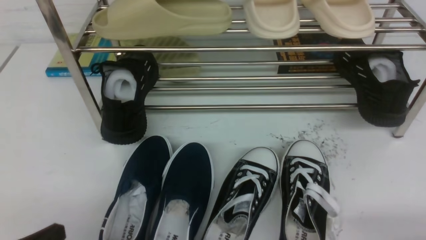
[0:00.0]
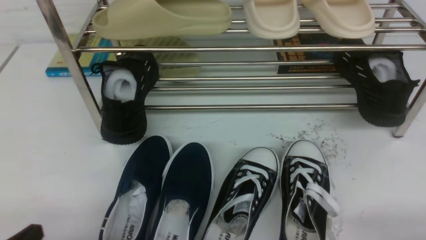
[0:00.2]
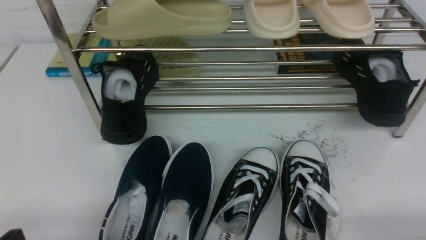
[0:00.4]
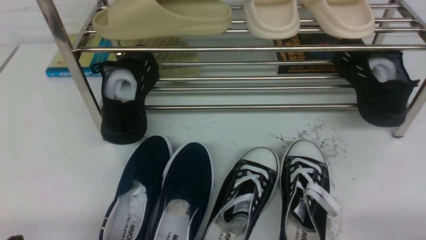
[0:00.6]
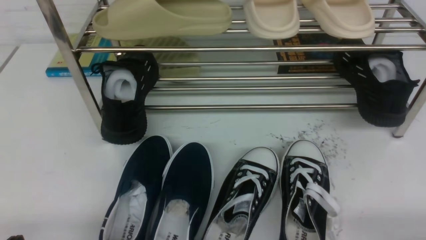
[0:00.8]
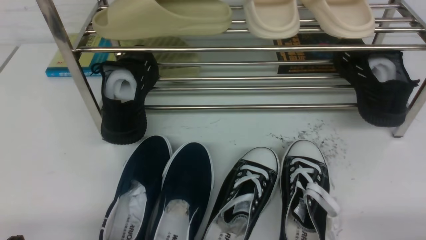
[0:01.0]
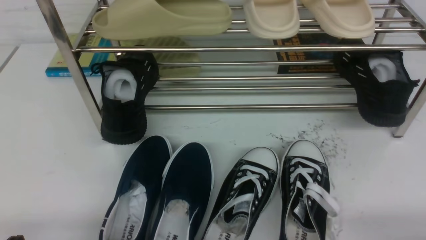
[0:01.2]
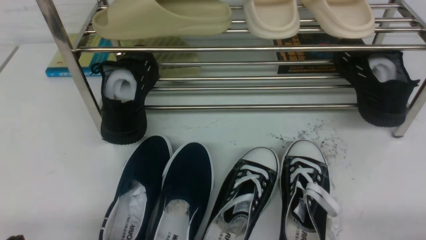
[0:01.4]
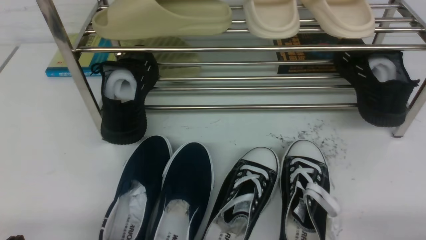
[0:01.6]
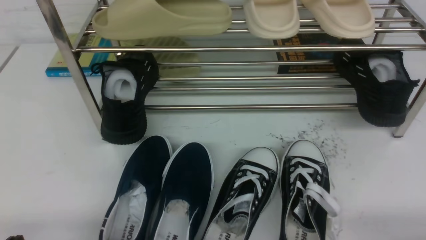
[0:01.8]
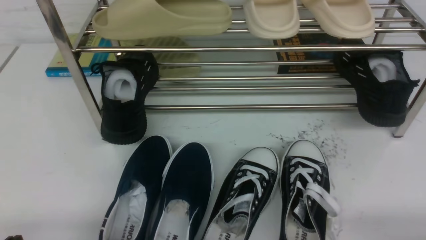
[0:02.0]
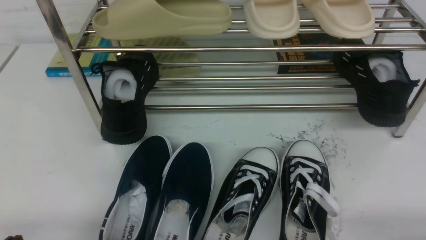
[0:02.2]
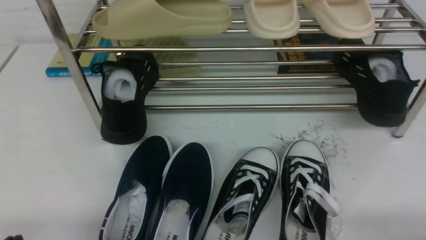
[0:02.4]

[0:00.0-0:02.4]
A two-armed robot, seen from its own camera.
0:01.2 to 0:02.4: Both grippers stay about where they are.

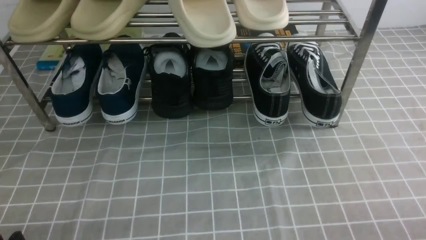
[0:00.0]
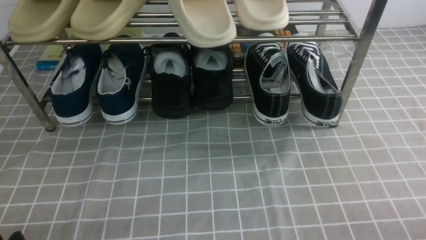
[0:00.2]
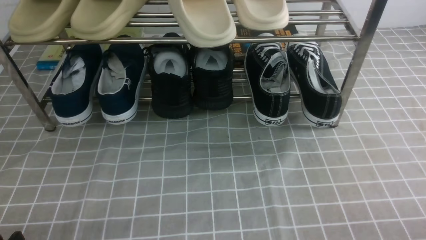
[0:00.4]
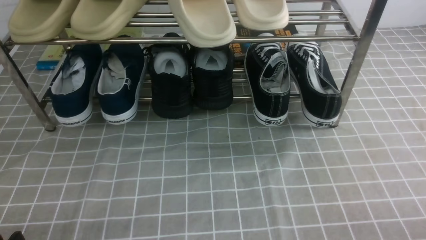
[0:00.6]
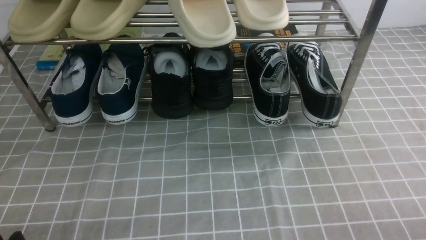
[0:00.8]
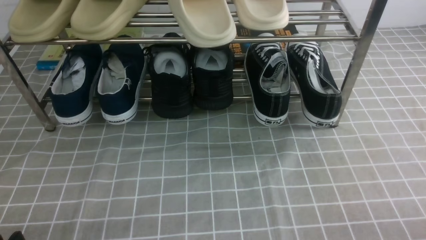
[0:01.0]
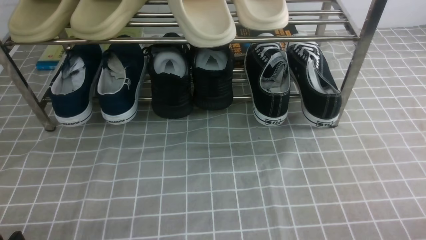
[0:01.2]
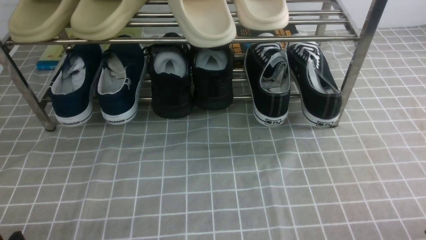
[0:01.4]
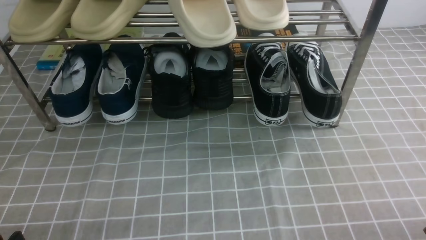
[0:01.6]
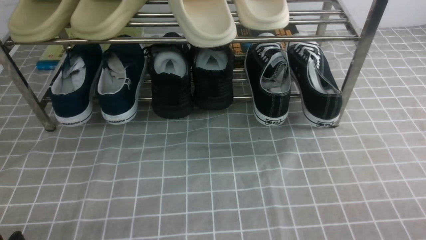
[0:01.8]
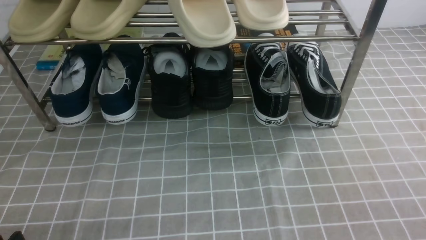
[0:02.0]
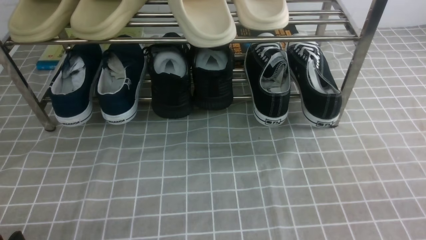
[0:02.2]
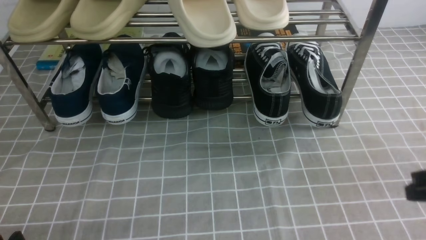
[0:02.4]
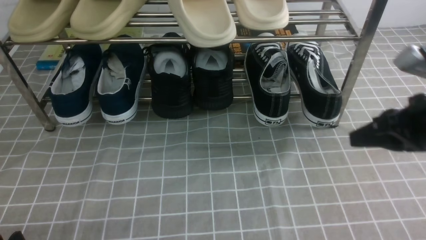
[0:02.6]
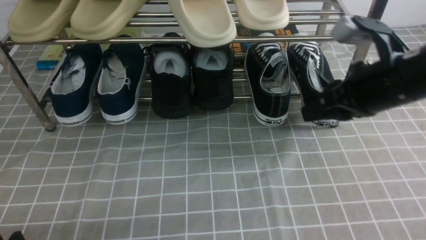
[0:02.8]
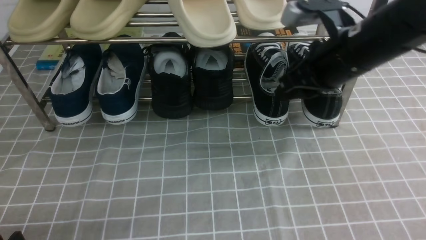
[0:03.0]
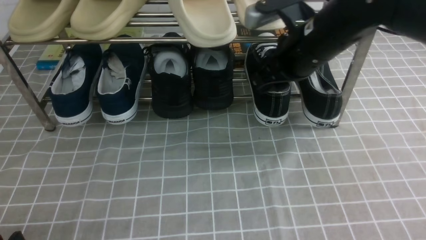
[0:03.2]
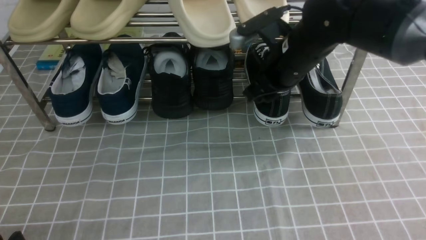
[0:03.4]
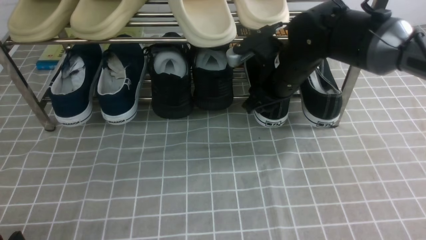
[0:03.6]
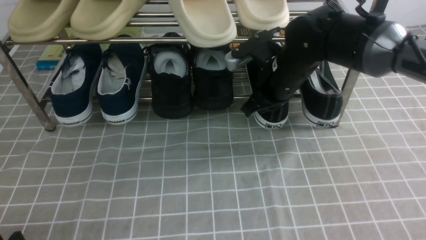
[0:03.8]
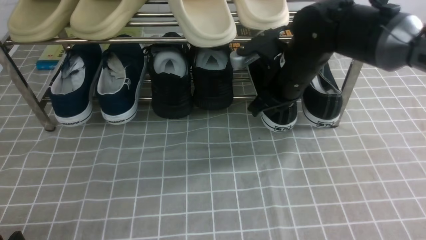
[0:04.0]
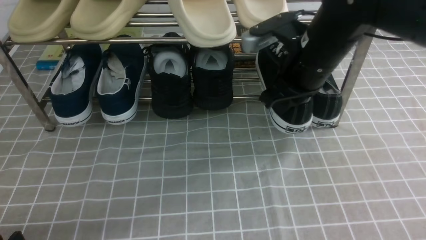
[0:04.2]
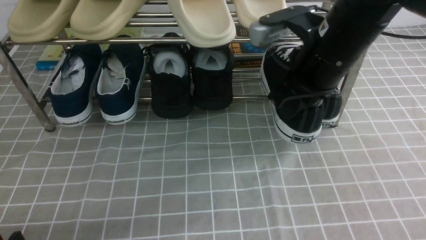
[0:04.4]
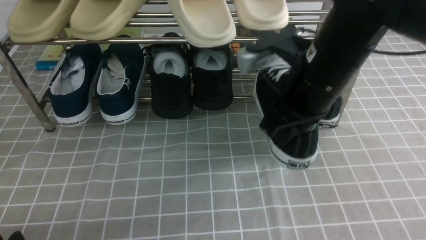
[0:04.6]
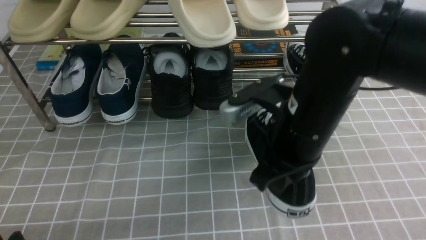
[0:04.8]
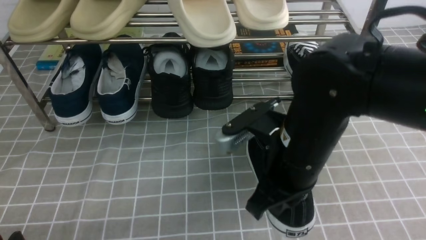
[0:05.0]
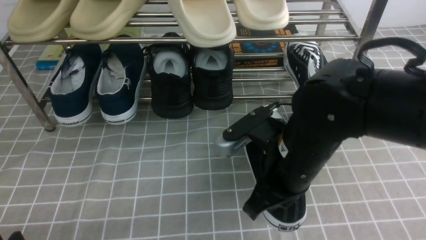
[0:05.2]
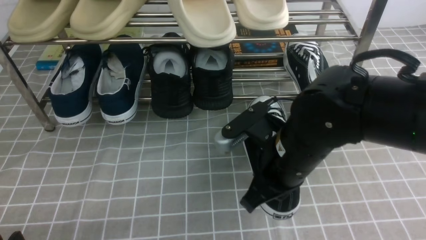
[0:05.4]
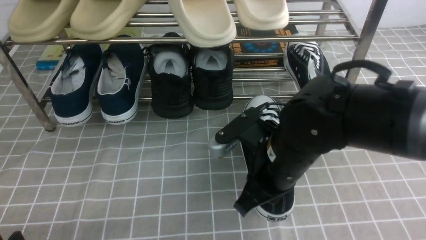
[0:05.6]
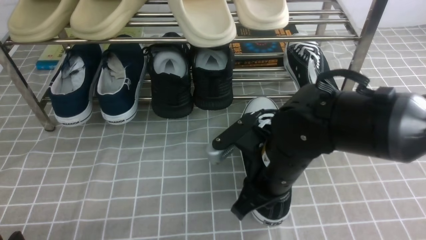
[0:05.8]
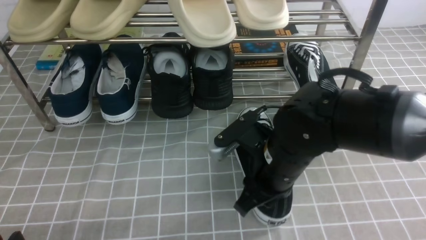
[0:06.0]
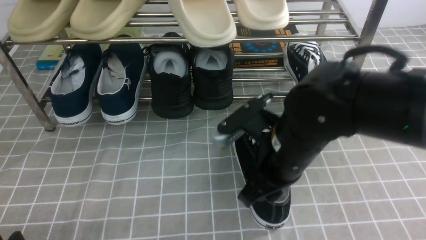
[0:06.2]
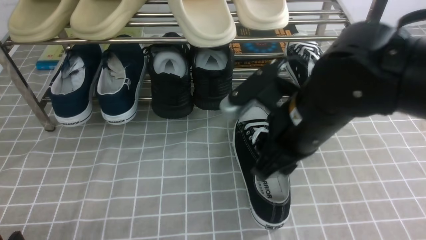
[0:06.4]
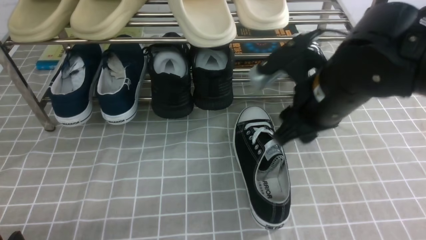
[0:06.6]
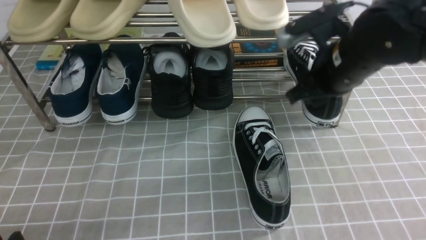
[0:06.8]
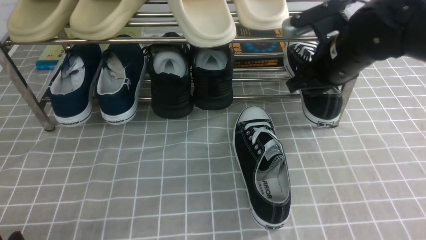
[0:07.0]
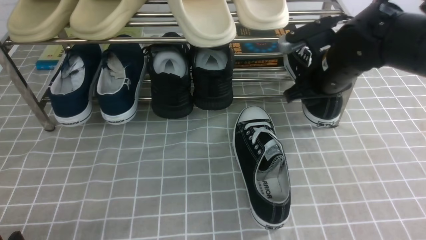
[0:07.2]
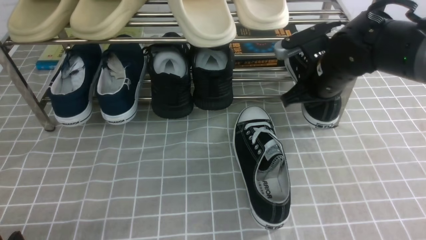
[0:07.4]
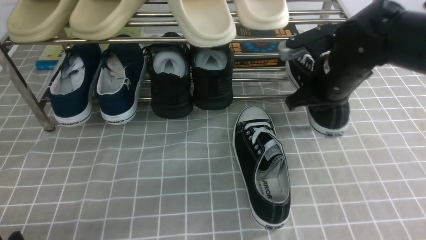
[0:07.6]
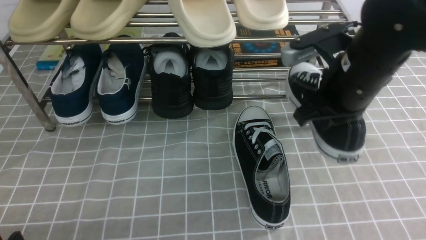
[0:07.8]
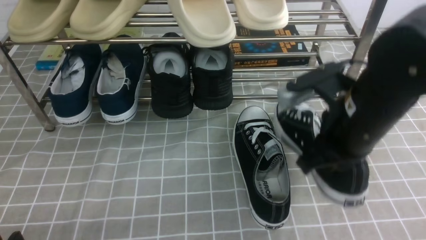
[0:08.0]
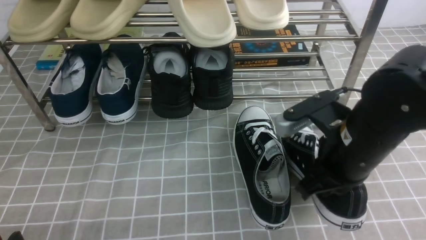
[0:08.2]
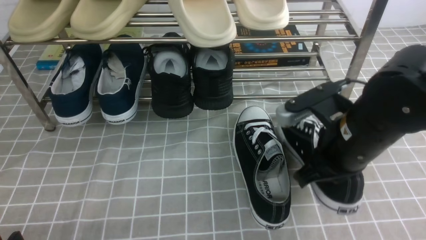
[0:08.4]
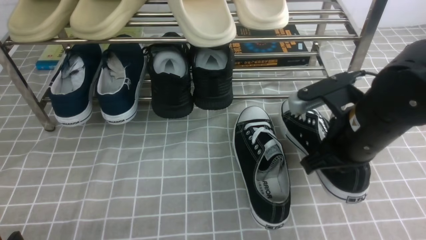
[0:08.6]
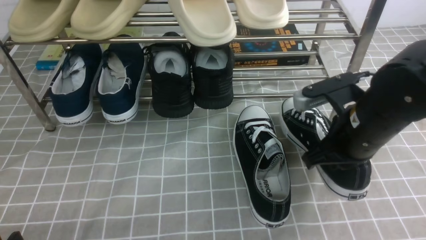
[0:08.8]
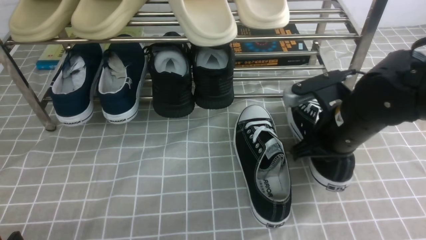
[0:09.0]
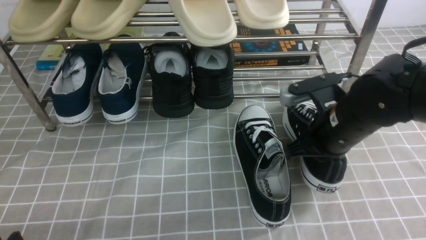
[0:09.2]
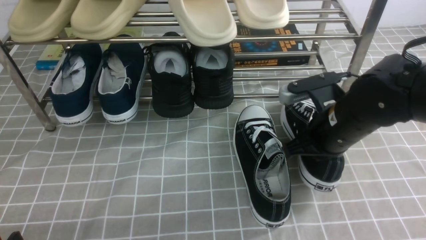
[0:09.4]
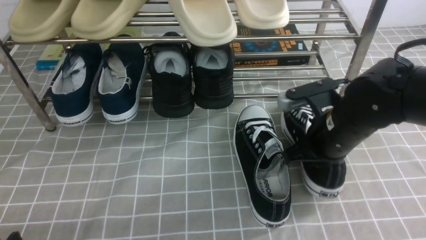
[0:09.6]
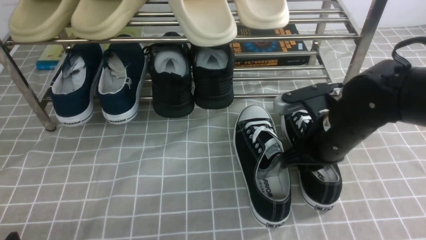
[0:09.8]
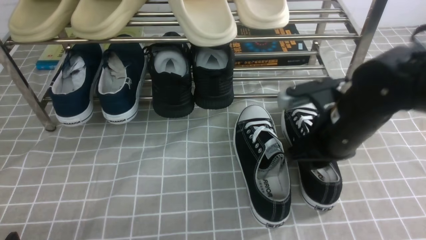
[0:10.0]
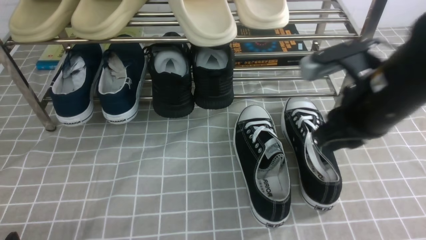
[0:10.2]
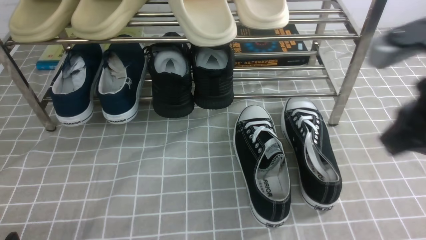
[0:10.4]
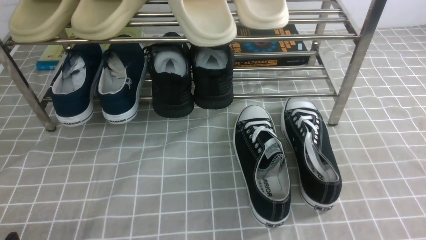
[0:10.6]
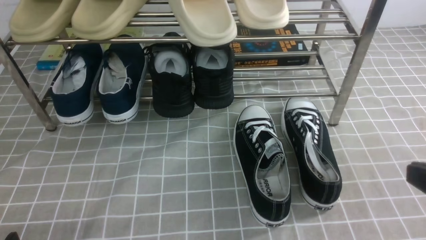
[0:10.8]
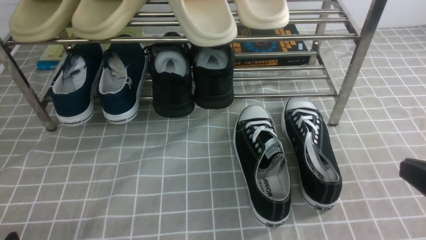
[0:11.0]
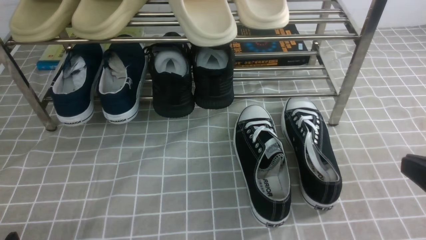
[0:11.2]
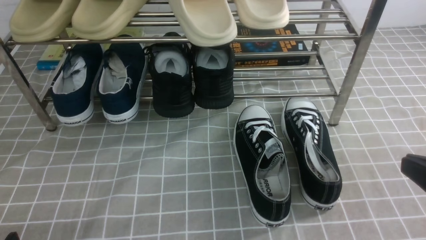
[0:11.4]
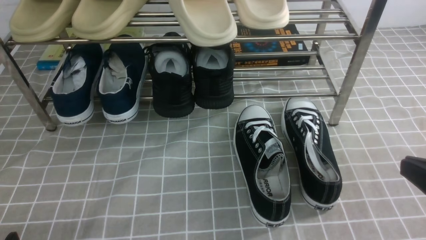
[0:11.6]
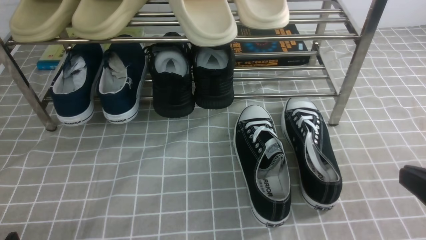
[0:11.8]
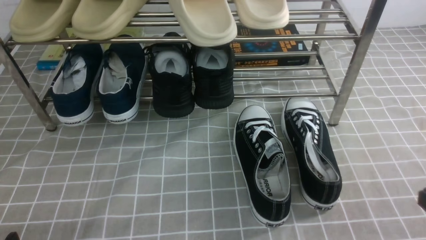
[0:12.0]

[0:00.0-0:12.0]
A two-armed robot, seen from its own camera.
Step, 0:00.0 to 0:04.0: use the right arm to clamp a shoe on the right side of the shoe rack.
Step, 0:04.2 to 0:06.2: use the right arm to take out the clamped shoe from the shoe rack and put it down.
Step, 0:06.4 to 0:07.6: use the right arm to clamp a shoe on the right side of the shoe rack.
Step, 0:07.8 to 0:10.0: use the right arm to take out the clamped shoe from the shoe rack and put it down.
0:01.6 to 0:03.0: The right gripper goes approximately 35 cm forward, to the left and upward, and closes, then reopens.
0:03.0 to 0:04.4: The right gripper travels forward and back again, approximately 5 cm each way, and closes up.
0:04.4 to 0:06.0: The right gripper goes about 10 cm downward and backward, and opens up.
0:06.0 to 0:07.6: The right gripper shifts roughly 15 cm forward, to the right and upward, and closes its fingers.
0:07.6 to 0:09.0: The right gripper travels backward by roughly 5 cm.
0:09.0 to 0:10.4: The right gripper moves upward, backward and to the right, some 15 cm, and opens and closes again.
0:10.4 to 0:12.0: The right gripper shifts roughly 15 cm downward, backward and to the right.

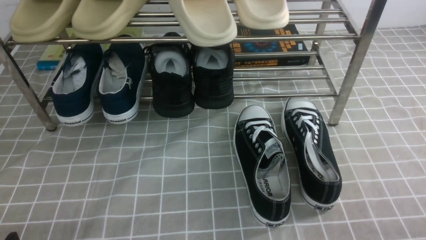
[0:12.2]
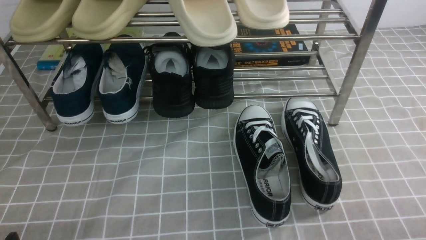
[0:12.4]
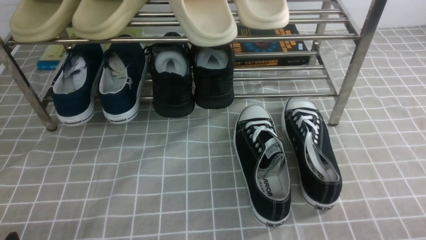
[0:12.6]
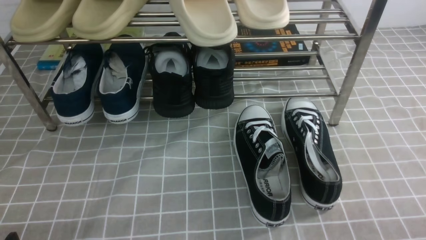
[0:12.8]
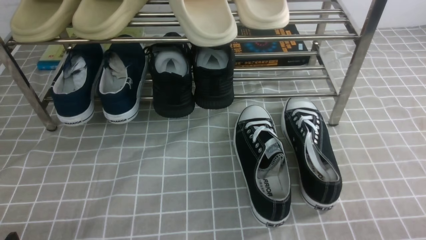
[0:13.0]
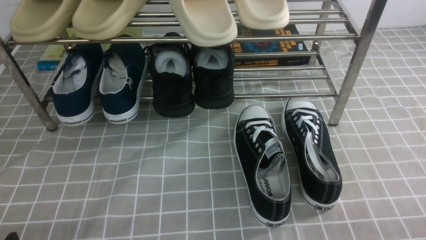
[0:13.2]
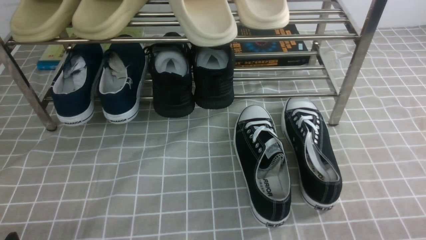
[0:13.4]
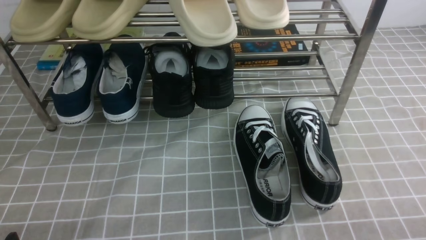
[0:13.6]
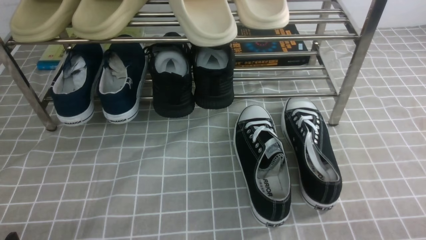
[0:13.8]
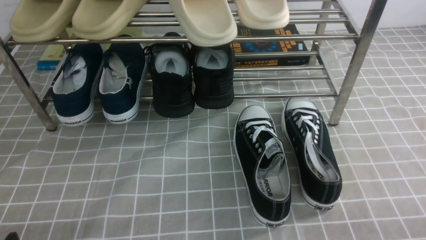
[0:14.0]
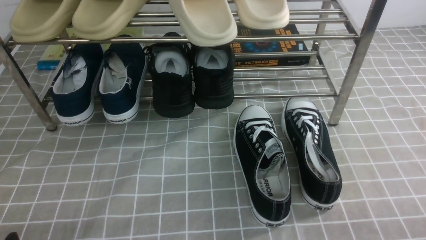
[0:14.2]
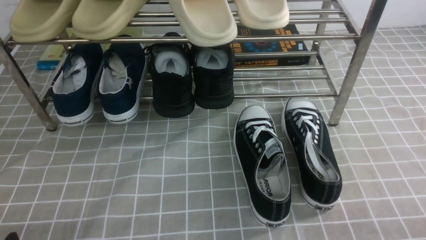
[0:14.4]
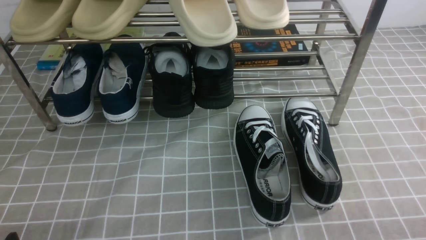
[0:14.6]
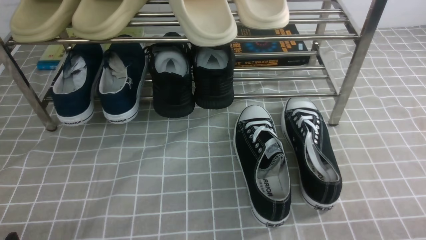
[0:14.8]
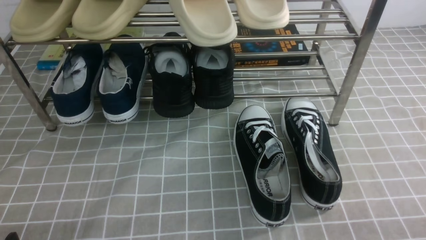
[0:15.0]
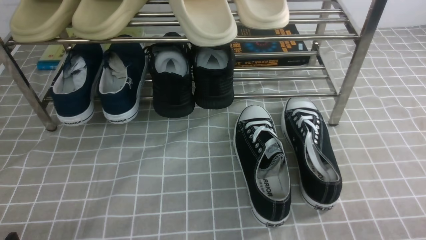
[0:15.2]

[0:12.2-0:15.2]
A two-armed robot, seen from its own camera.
0:13.8 to 0:15.2: Both grippers stay about where they are.
